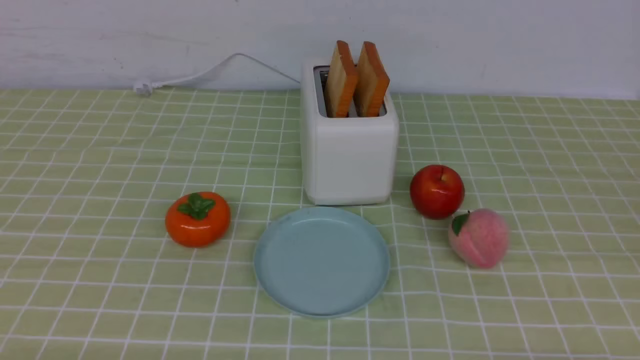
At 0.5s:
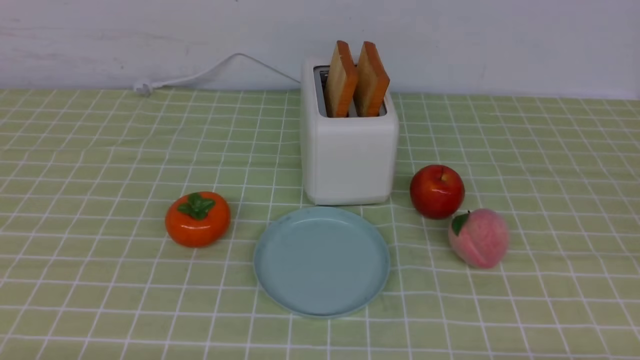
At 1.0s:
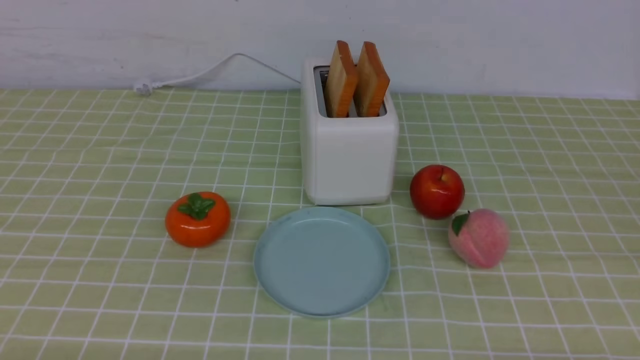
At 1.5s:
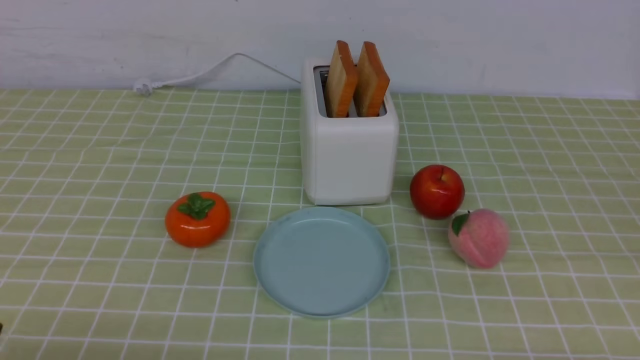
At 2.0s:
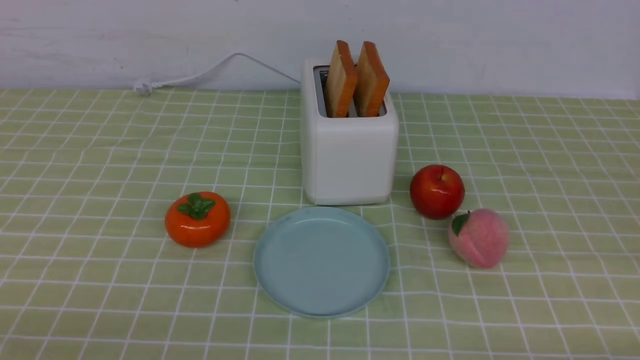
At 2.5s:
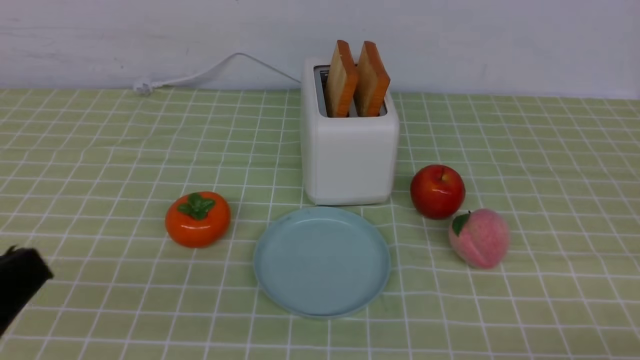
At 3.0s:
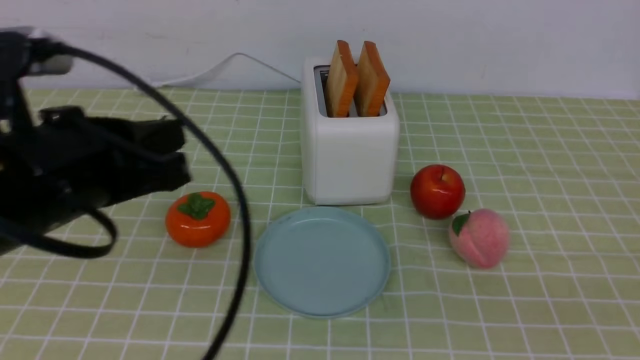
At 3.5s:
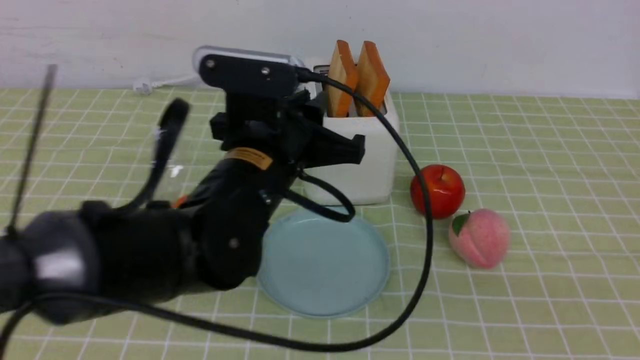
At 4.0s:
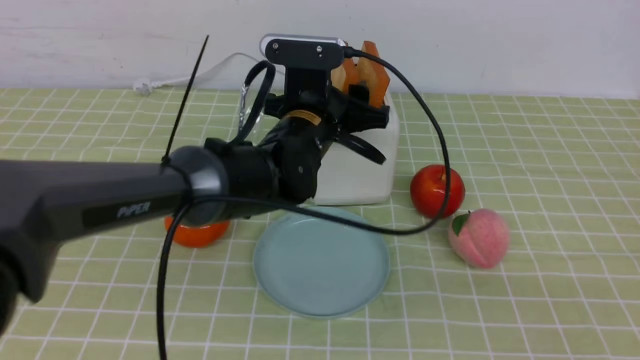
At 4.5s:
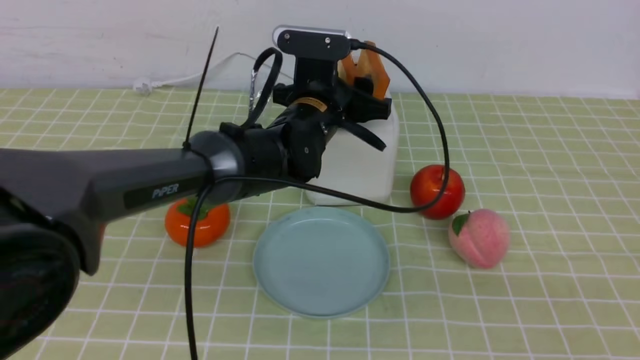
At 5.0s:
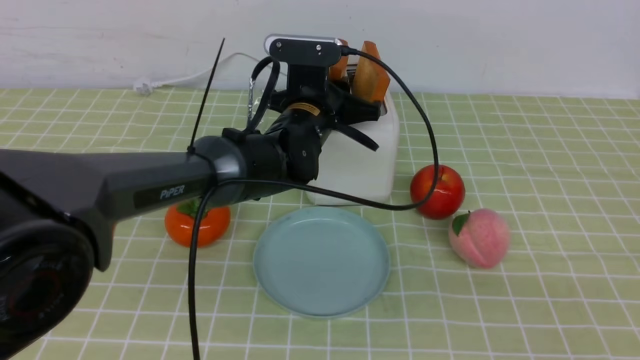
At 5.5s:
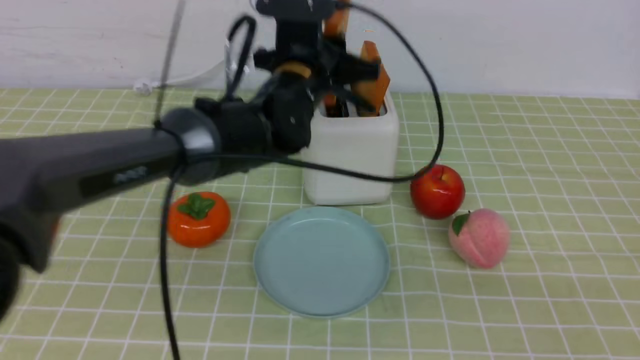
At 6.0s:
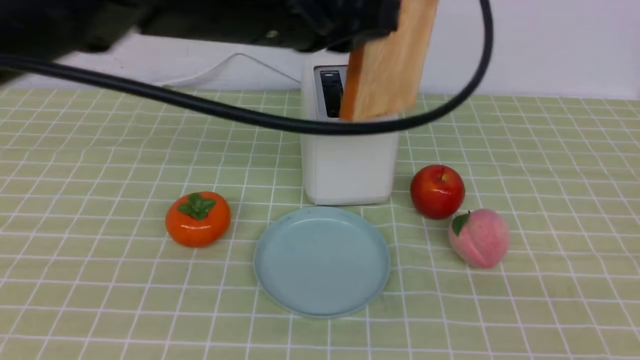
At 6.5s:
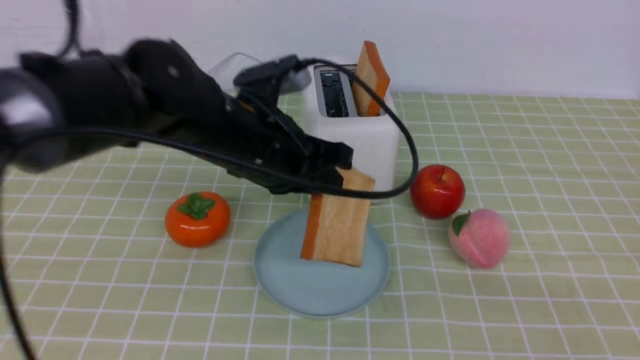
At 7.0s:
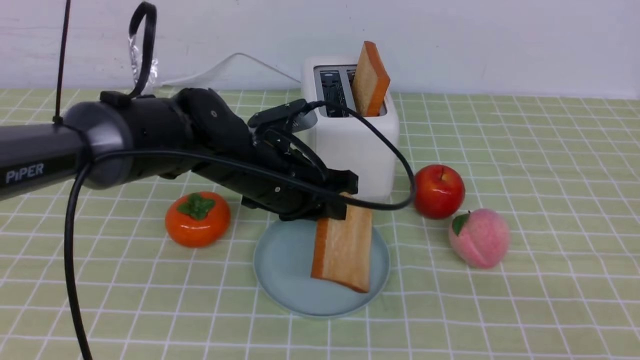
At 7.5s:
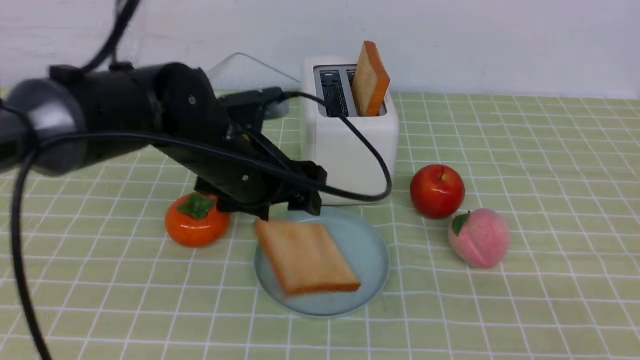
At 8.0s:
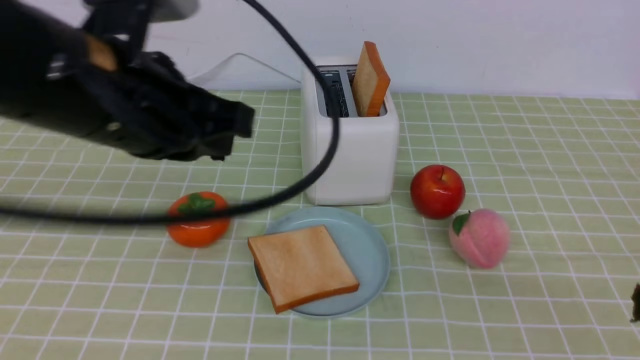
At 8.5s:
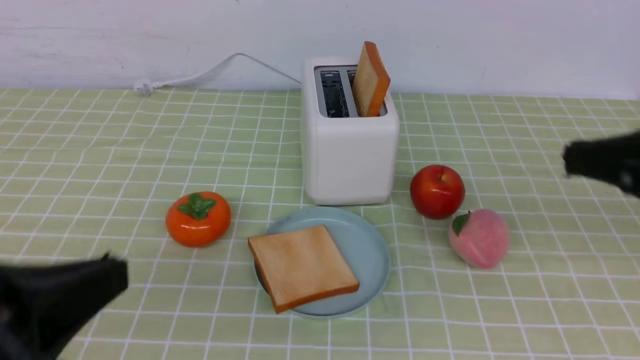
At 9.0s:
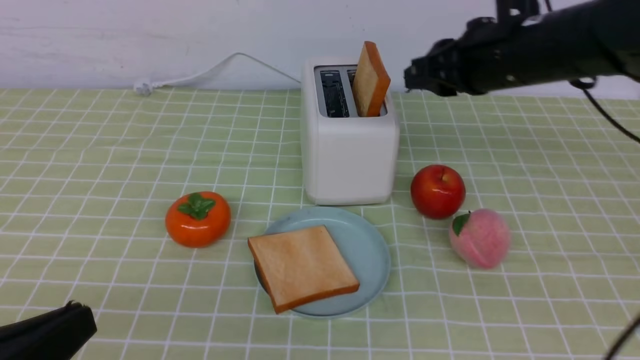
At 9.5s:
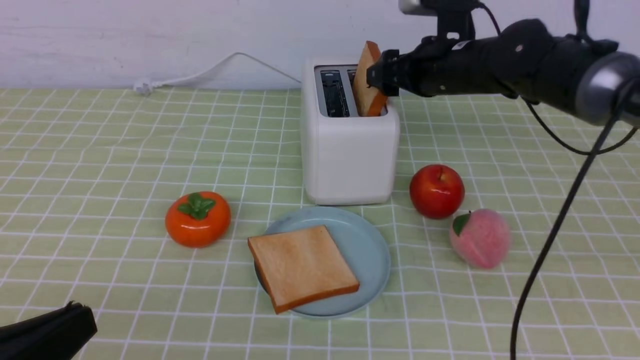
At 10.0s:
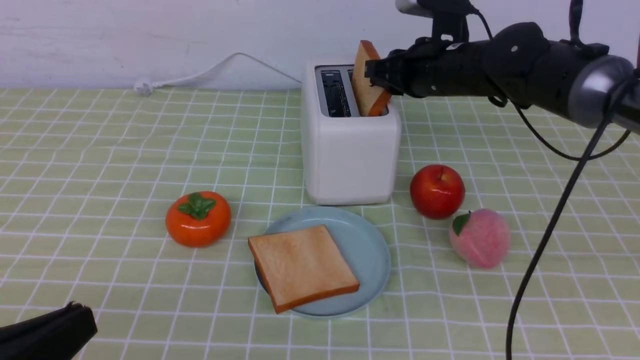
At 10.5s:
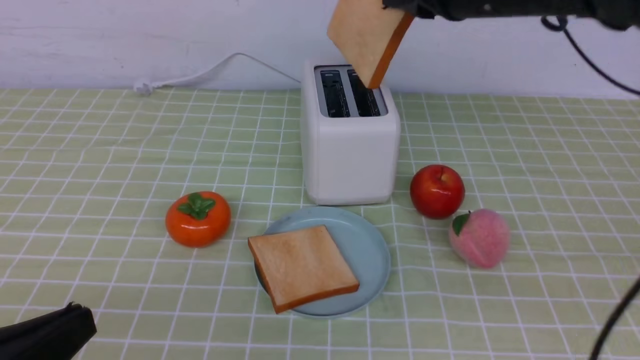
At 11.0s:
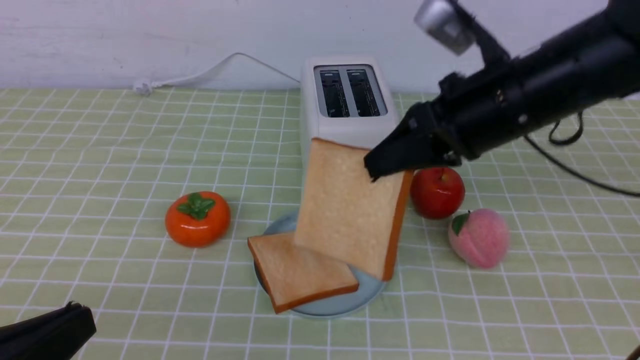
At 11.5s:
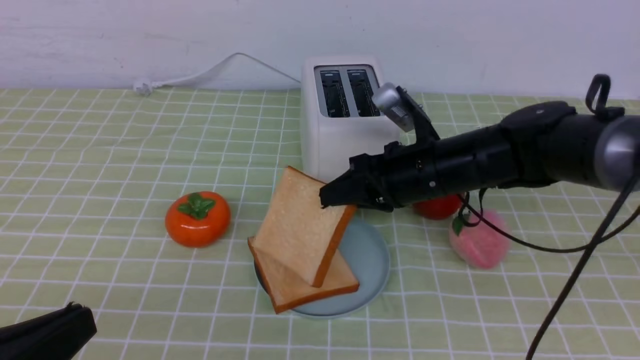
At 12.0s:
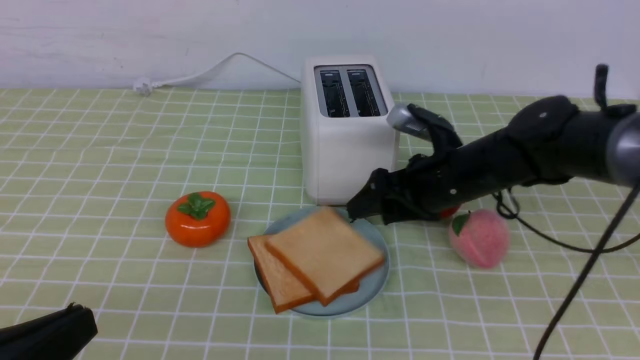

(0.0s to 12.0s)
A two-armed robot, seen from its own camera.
Task of the whole recording: take toasted bread from bread machine on green coffee tablecloth place on plate.
Step, 0.0s - 5.5s: use the left arm to take out a slice of bread.
Step, 6.0s - 7.5s: use the left arm to put a slice of bread into the empty plate.
Step, 8.0s - 10.5s: use the right arm to take out a slice of bread.
2.0s - 4.0s: The right gripper travels upward by approximately 15 cm. The left gripper is displaced forward and to the right by roughly 40 cm, and opens up.
4.0s - 6.0s: The left gripper goes roughly 15 cm upward and backward, and closes up.
6.0s - 8.0s: The left gripper goes some 10 cm backward and to the left, travels downward and back again, some 15 cm each way, and opens, then closes once more.
8.0s - 10.0s: The right gripper goes approximately 40 cm forward, and opens, then closes once more; the left gripper goes approximately 20 cm backward, downward and to the left.
10.0s - 12.0s: The right gripper travels backward by some 10 cm, reaches roughly 10 cm upward, then returns, and opens its fingers.

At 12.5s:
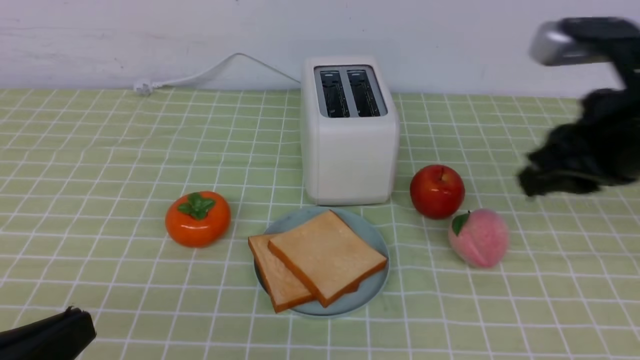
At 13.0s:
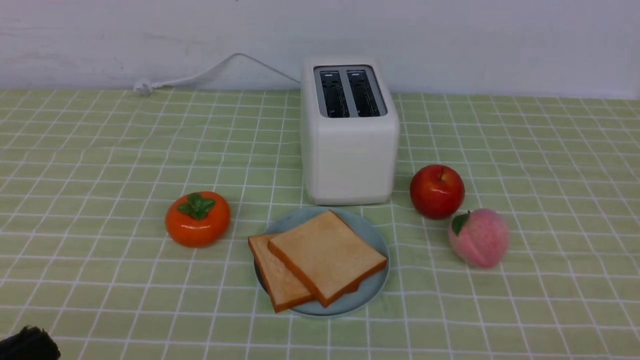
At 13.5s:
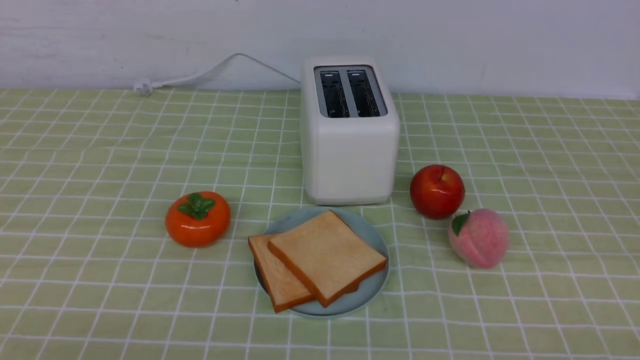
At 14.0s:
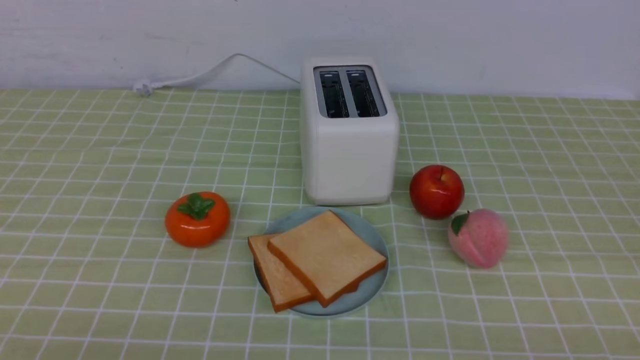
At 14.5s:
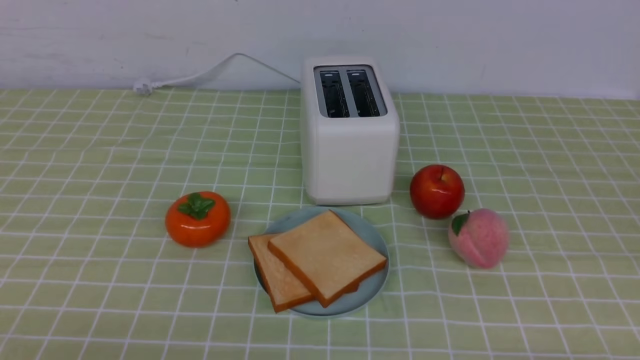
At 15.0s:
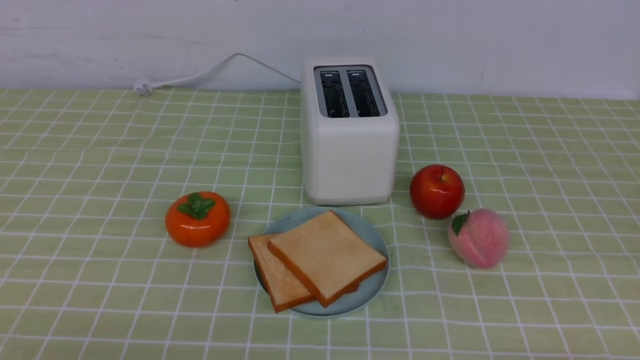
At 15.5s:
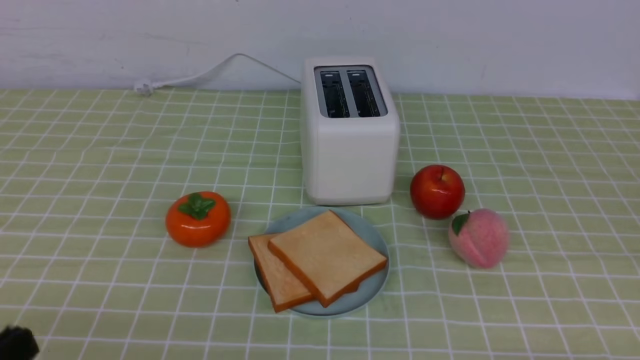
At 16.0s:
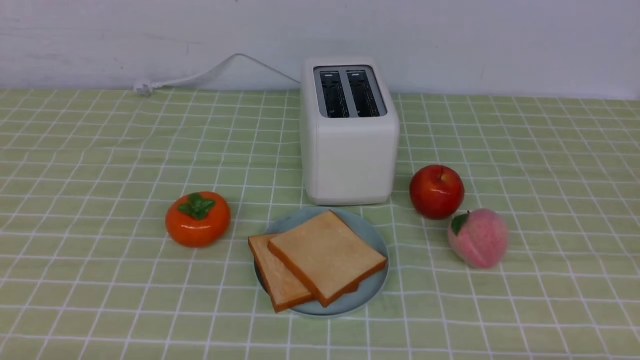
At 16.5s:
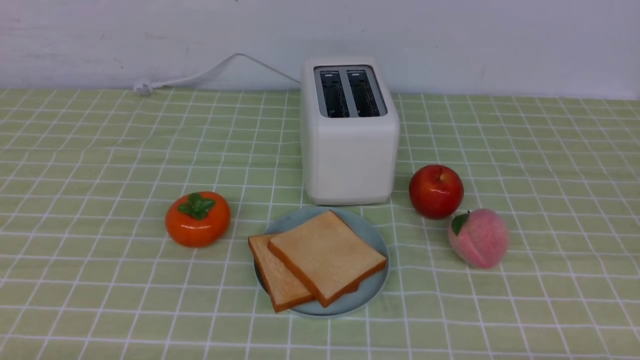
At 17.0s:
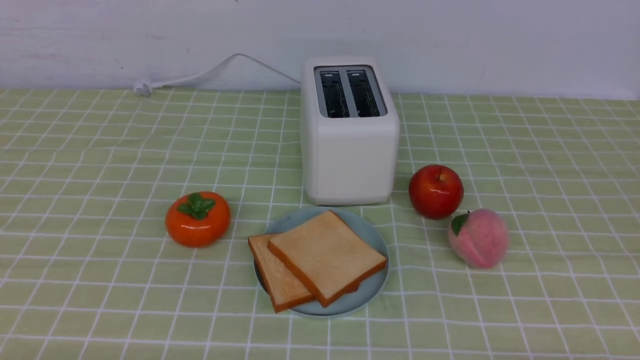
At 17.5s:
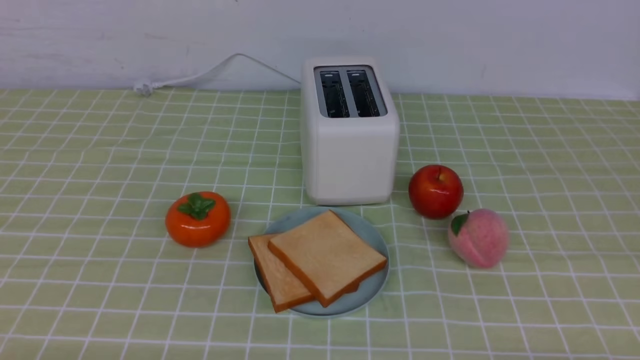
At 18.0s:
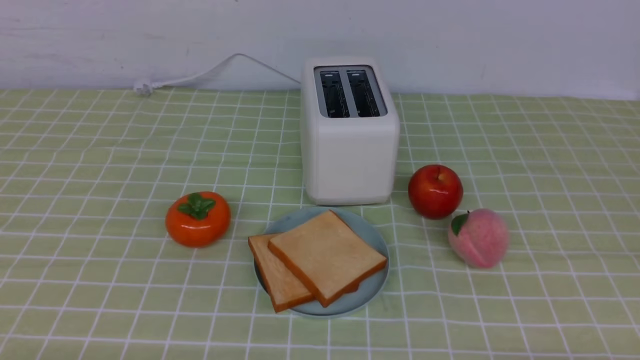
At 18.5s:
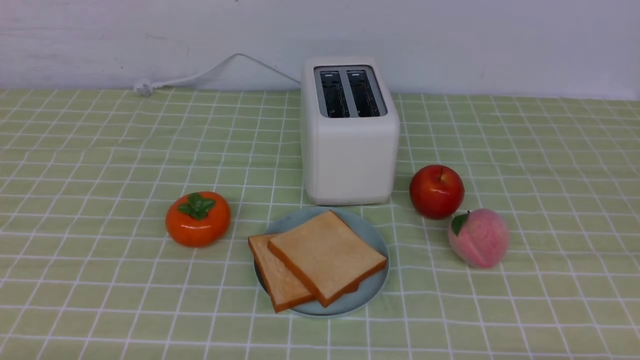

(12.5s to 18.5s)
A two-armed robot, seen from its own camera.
Task of the whole recording: take toasted bread from bread machine on green coffee tablecloth place on plate.
12.5s - 14.5s: The right gripper heads downward, backward and to the right, covering some 30 cm.
16.5s - 18.5s: The two grippers keep their place.

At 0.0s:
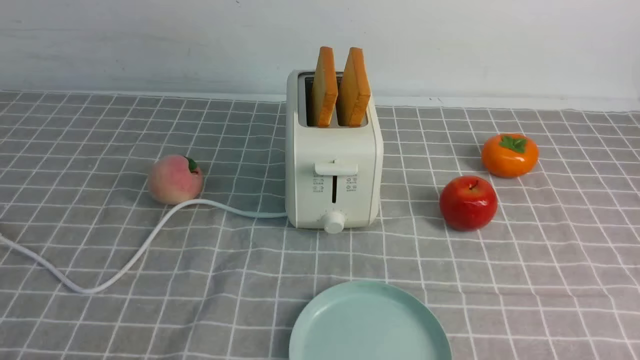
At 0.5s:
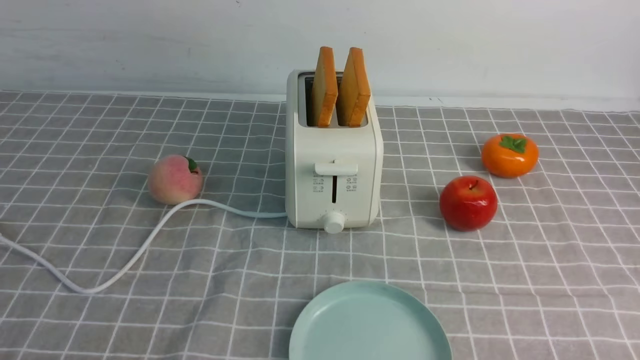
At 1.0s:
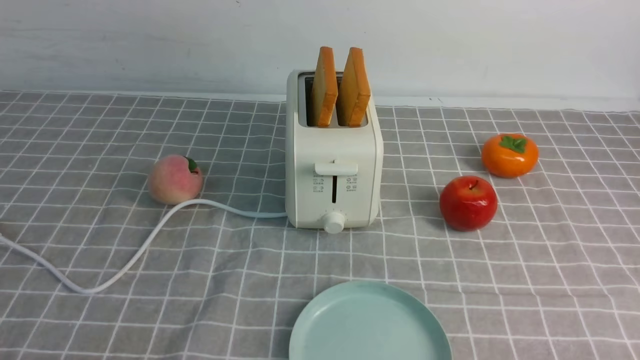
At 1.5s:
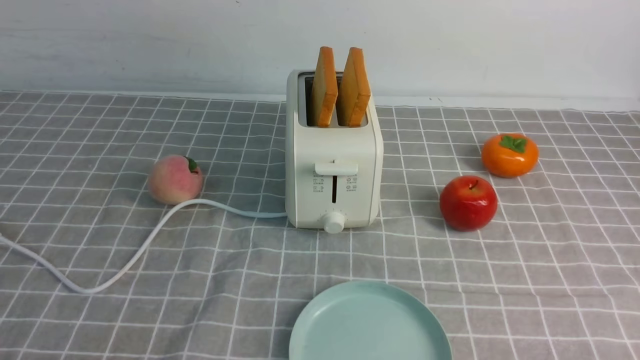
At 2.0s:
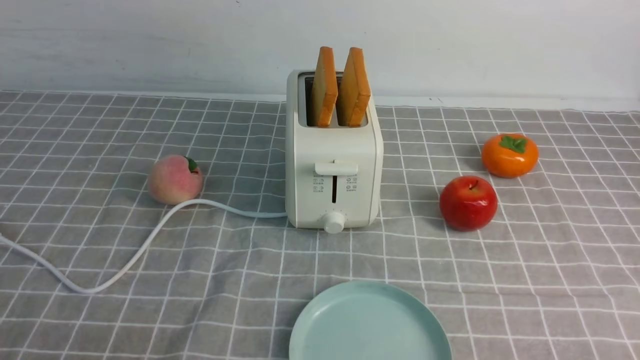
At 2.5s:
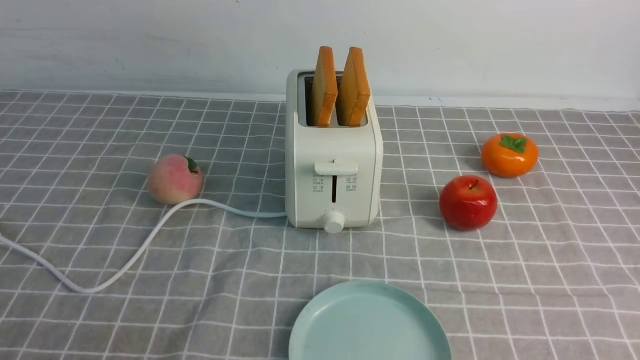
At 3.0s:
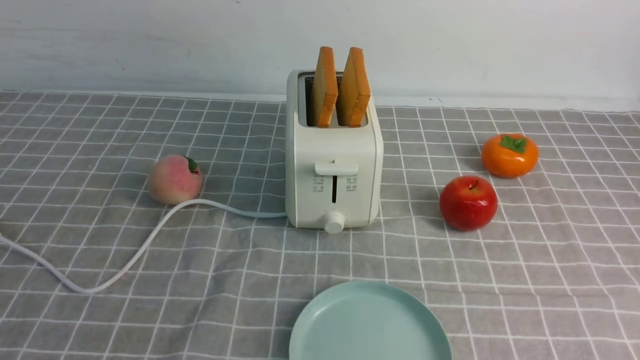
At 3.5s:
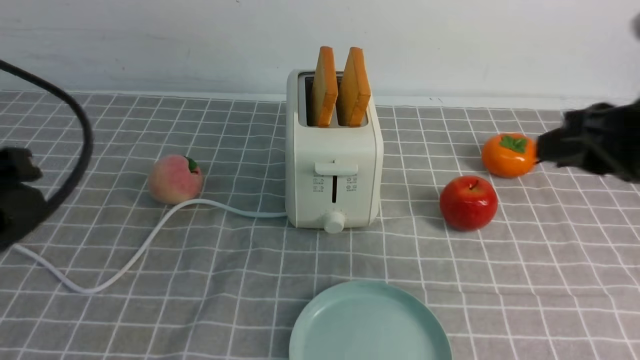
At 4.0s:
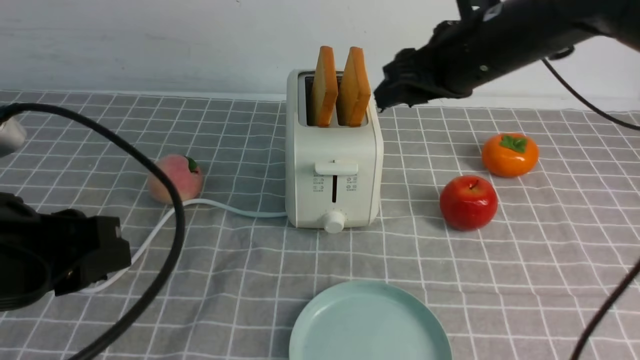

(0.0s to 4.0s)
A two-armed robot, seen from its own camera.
Task of the whole recording: take toasted bread from bread machine on grey coffee table place on plate.
2.0s - 4.0s: The left gripper moves upward, forward and to the right, about 15 cm. Meanwhile the right gripper is displaced forward, to the left and upward by roughly 40 cm.
